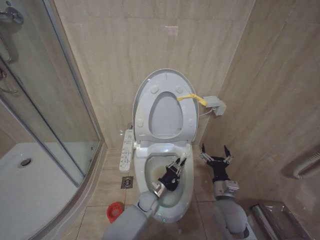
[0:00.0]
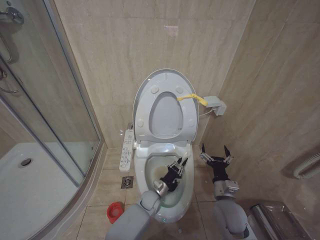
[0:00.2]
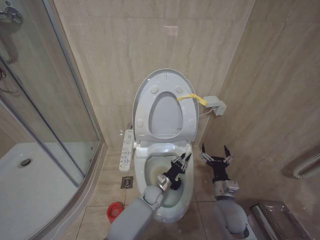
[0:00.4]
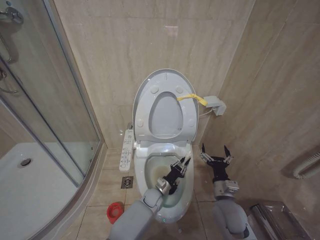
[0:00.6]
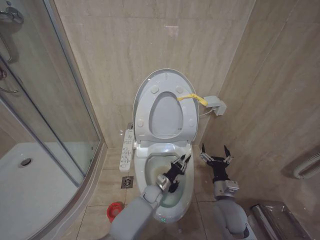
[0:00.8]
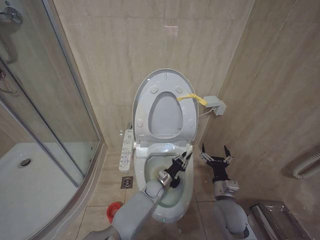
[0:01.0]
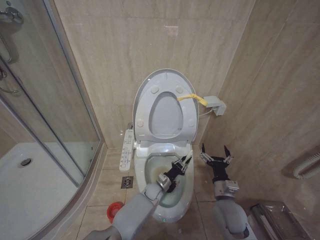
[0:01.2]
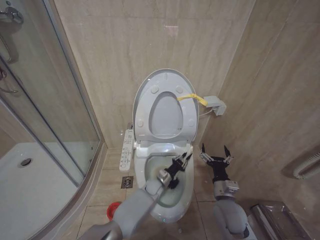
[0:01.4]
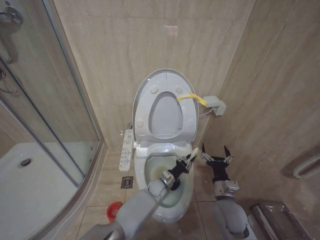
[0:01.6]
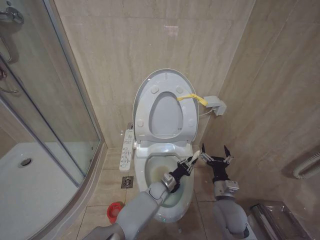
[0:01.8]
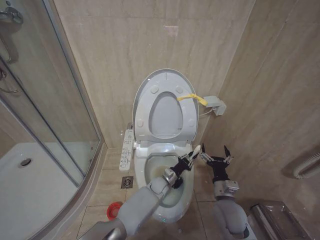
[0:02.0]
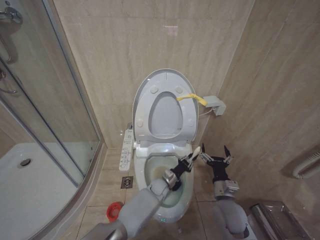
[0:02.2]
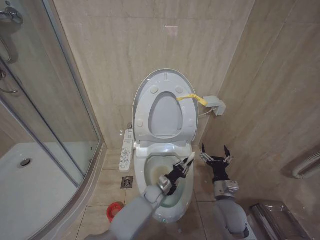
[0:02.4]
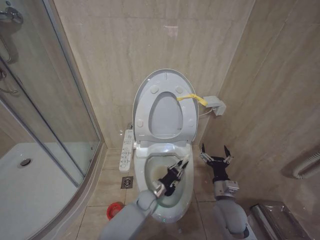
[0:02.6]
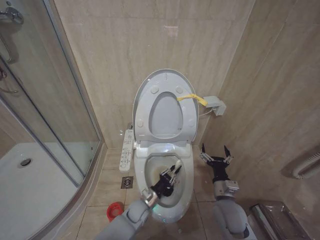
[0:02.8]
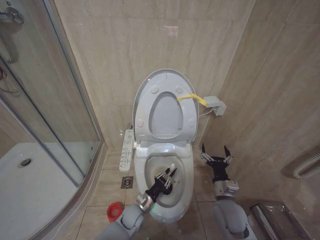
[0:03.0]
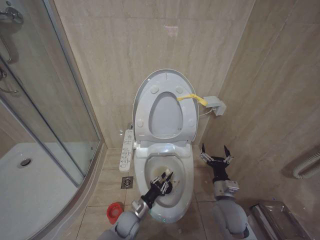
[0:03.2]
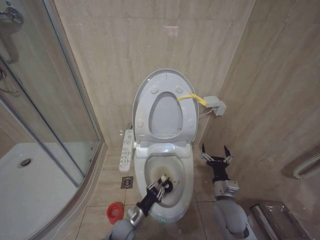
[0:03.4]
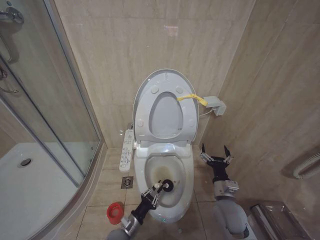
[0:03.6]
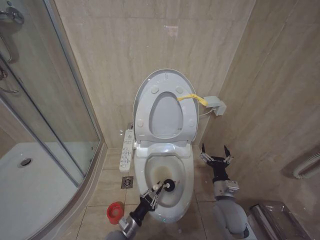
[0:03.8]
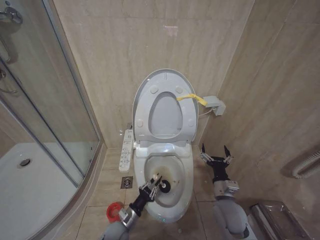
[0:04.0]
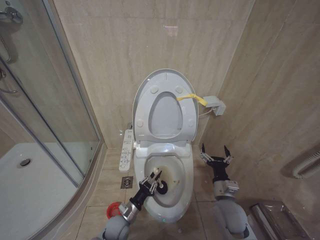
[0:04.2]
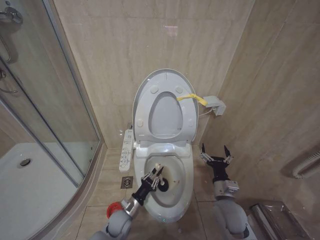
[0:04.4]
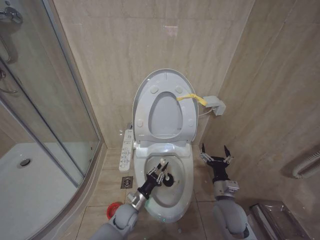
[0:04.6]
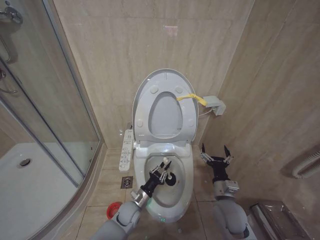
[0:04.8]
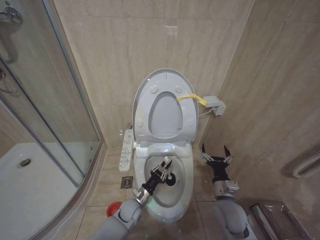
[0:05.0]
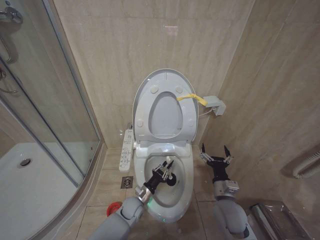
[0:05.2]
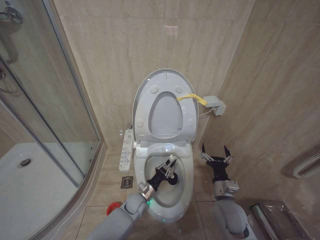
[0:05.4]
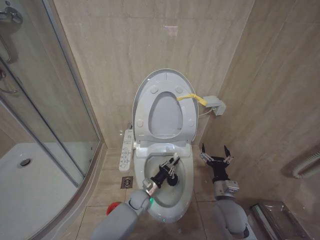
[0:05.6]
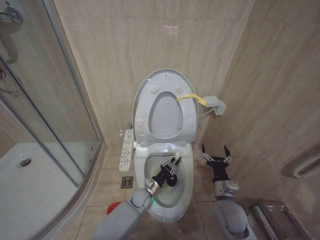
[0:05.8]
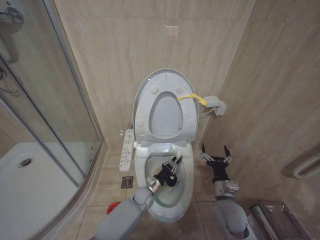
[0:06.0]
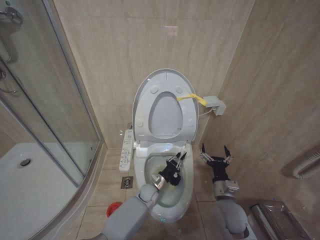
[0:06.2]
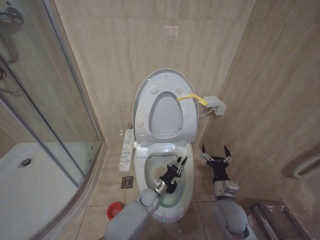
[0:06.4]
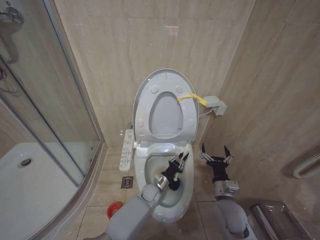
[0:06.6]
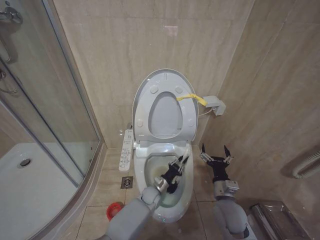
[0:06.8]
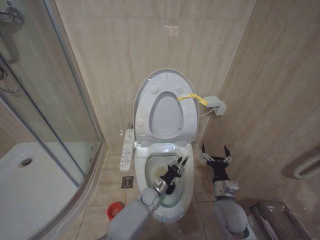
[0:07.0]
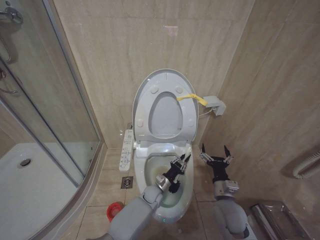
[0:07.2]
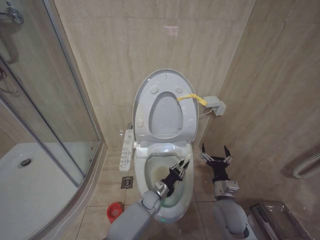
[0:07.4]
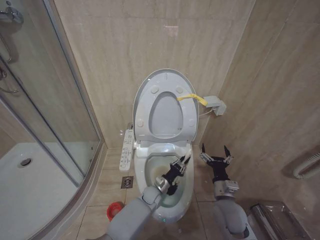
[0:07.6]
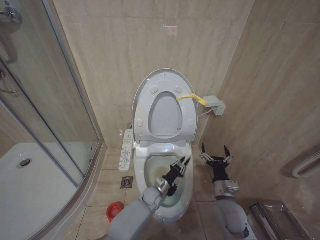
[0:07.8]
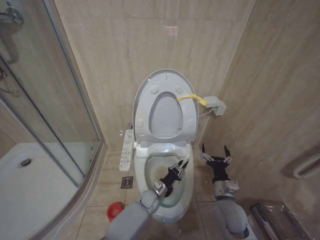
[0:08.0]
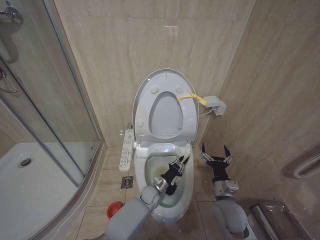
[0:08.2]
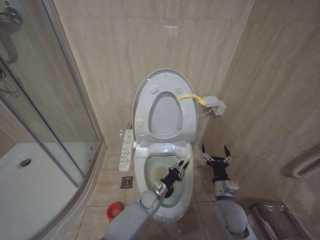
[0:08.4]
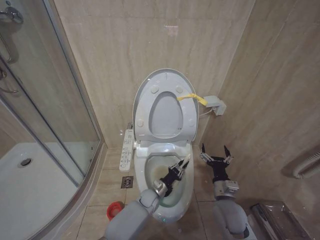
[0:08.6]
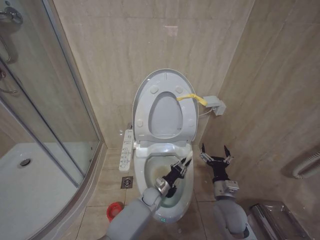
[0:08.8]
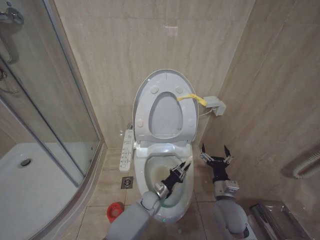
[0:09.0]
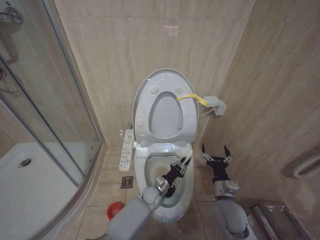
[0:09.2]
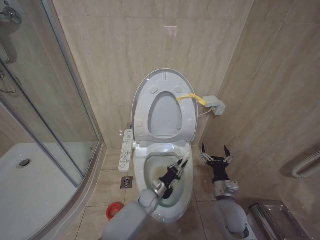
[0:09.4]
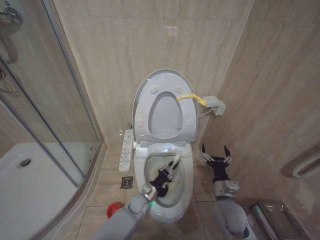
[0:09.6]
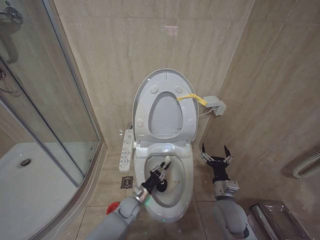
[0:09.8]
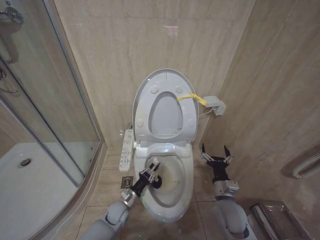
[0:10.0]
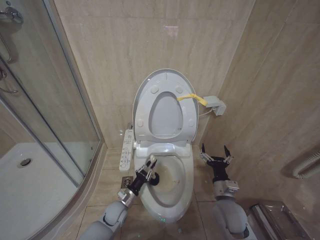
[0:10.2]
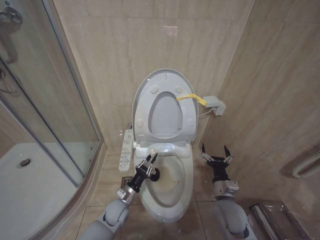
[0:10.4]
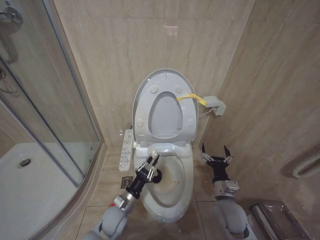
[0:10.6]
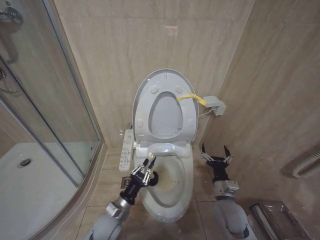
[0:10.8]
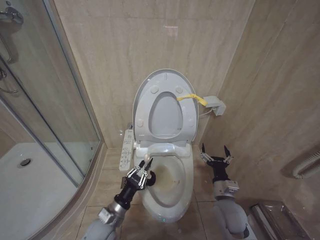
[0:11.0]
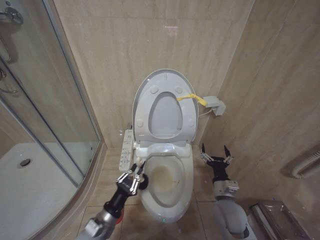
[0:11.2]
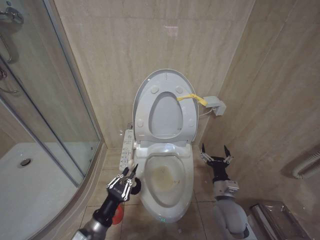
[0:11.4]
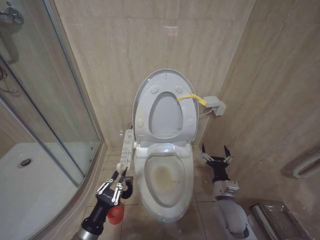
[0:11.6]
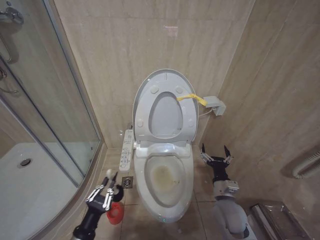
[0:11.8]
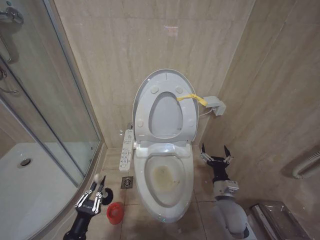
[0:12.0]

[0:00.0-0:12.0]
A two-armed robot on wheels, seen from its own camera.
Task of the whole recording: Open the toilet lid, clean the toilet bowl with a toilet brush, close the toilet lid, and flush.
0:00.0 to 0:01.6: The left gripper is displaced forward by roughly 5 cm.
0:01.6 to 0:03.0: The left gripper heads backward and to the left, covering roughly 15 cm.
0:03.0 to 0:04.4: The left gripper moves to the left, about 5 cm.
0:04.4 to 0:06.0: The left gripper heads forward and to the right, covering approximately 15 cm.
0:06.0 to 0:09.0: The grippers stay close to where they were, moving slightly.
0:09.0 to 0:10.4: The left gripper heads to the left and upward, covering approximately 15 cm.
0:10.4 to 0:12.0: The left gripper is displaced backward and to the left by some 25 cm.

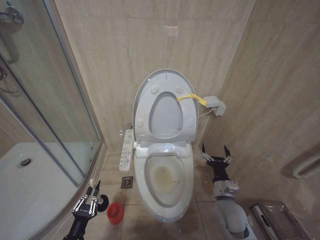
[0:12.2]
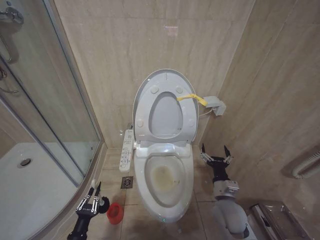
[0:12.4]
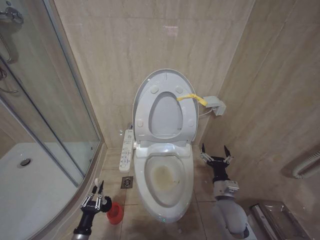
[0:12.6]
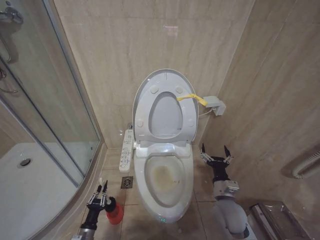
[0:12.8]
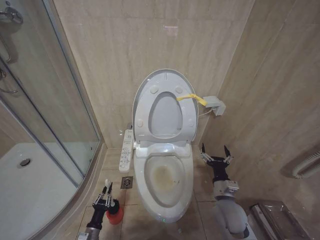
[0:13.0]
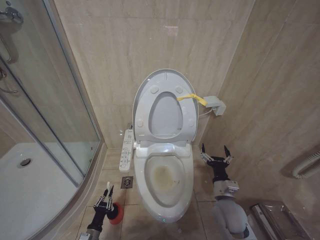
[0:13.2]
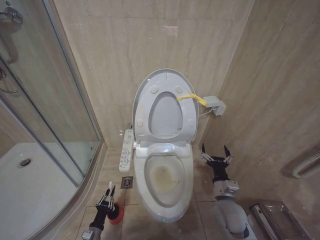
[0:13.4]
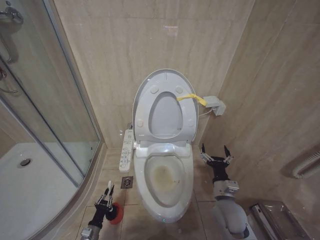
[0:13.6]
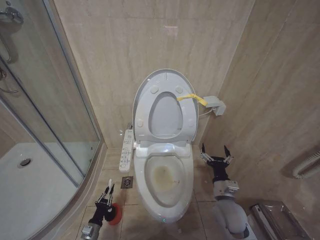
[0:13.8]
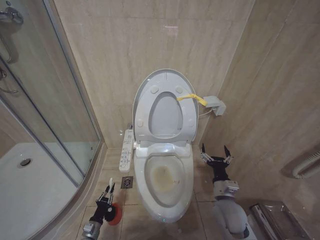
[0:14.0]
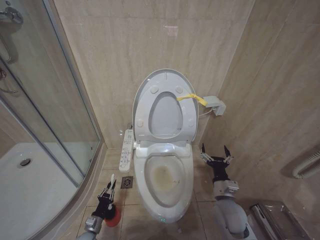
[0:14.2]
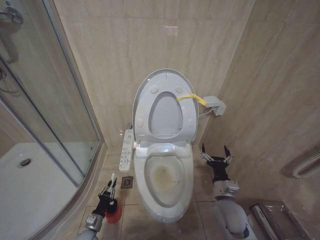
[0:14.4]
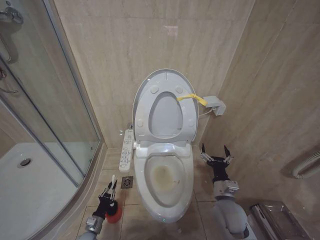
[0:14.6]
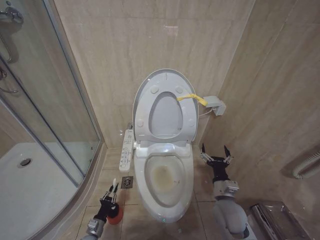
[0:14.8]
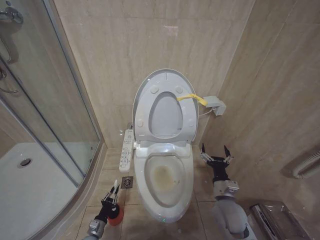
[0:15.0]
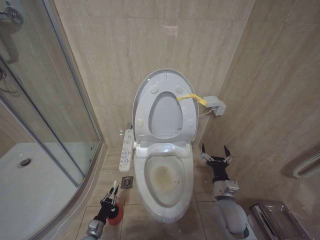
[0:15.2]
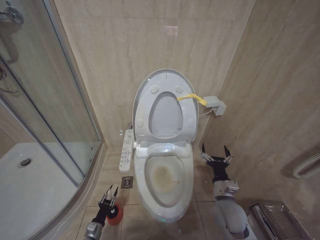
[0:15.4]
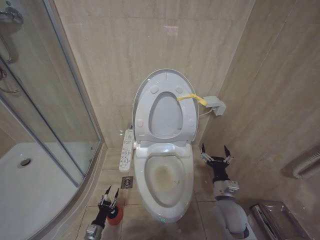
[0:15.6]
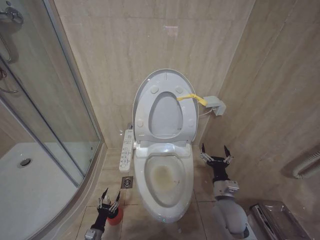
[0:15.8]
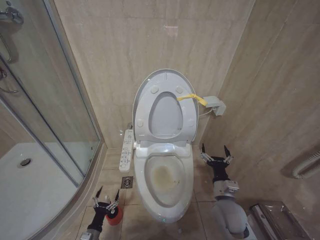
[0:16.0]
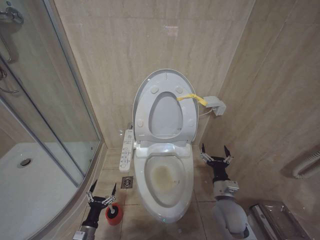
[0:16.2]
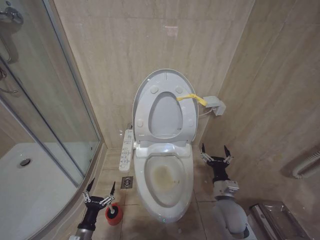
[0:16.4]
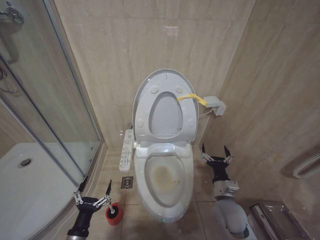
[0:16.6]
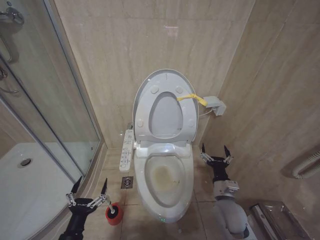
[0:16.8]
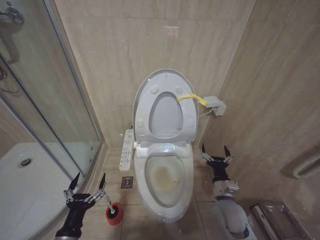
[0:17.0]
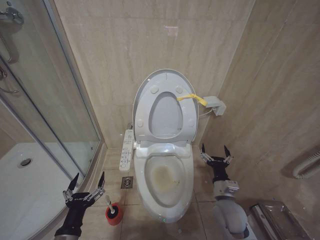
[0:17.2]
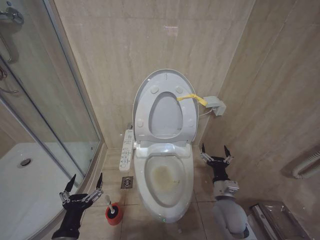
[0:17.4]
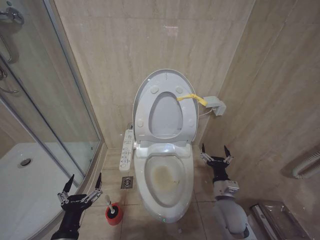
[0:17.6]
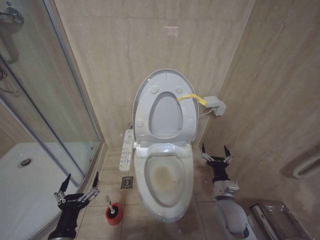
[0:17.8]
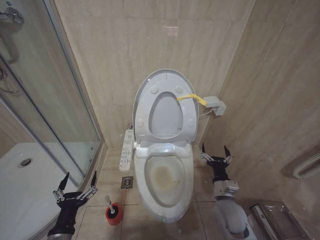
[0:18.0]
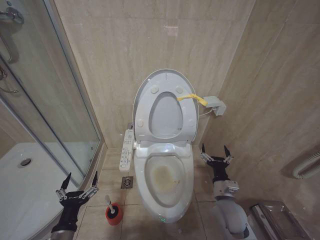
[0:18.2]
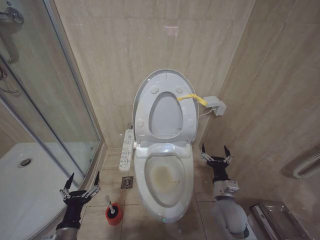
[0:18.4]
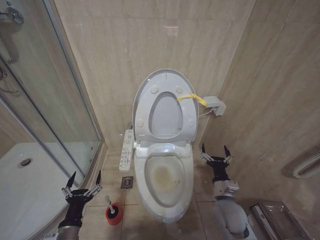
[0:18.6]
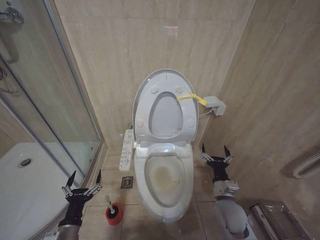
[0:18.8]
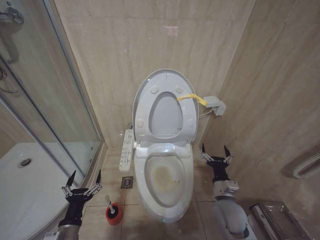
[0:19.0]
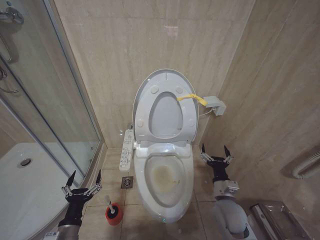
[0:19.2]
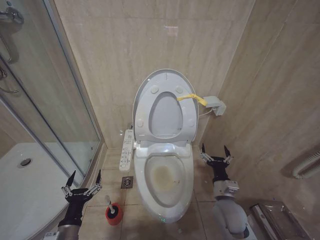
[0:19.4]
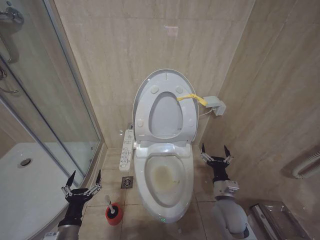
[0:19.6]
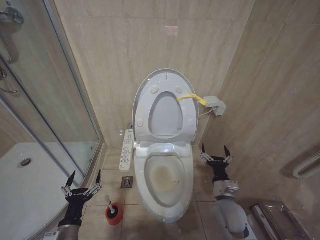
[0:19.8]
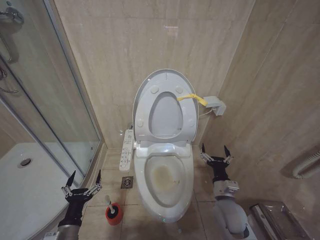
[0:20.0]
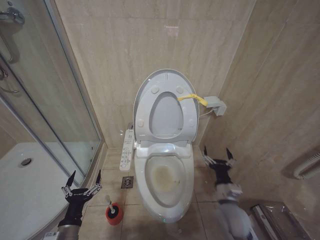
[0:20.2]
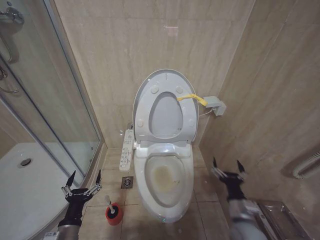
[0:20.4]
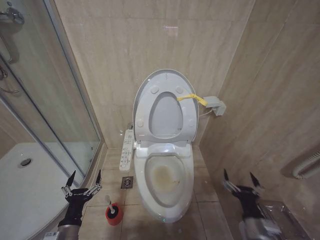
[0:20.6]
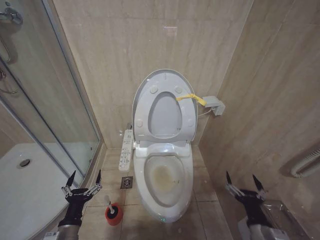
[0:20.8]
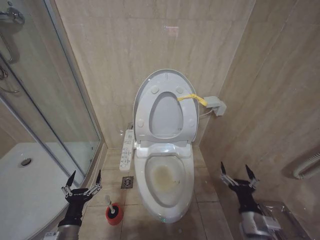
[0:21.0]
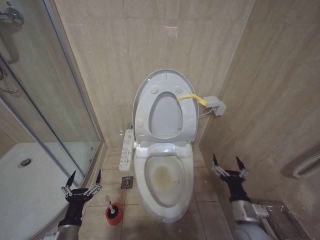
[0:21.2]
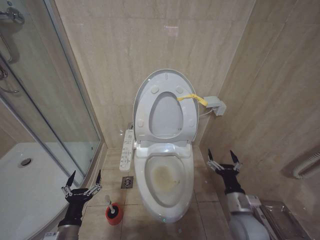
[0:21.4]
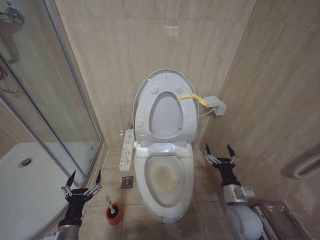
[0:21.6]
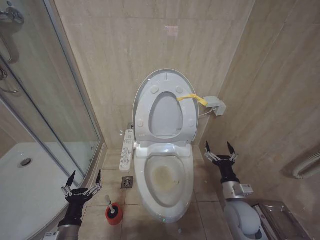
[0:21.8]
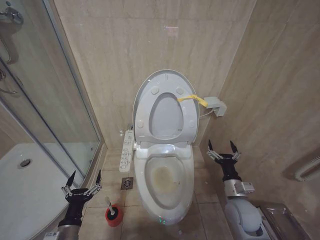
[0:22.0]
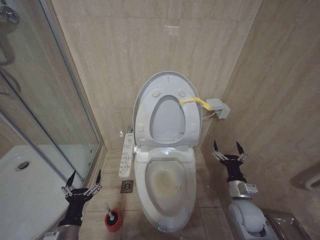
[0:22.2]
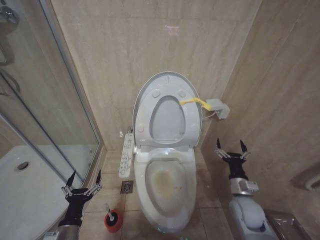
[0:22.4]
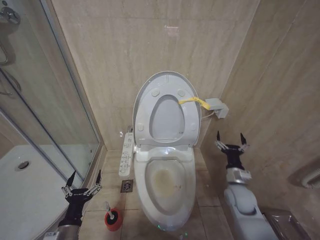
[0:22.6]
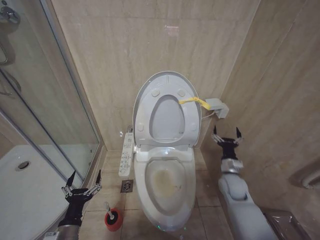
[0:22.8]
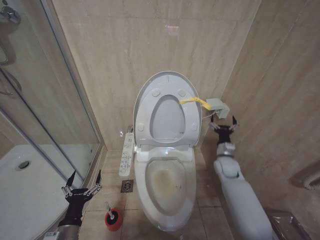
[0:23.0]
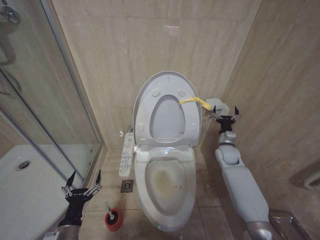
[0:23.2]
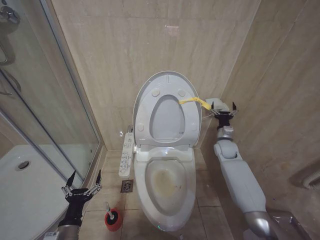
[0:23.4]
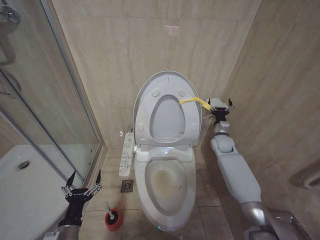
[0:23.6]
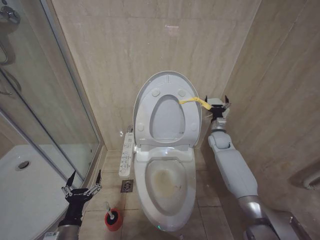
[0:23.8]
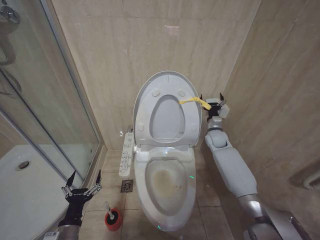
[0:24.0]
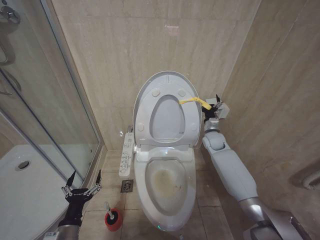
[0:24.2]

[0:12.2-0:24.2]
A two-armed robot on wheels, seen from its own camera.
Task of the whole recording: Open the toilet lid, clean the toilet bowl with a toilet brush, close the toilet lid, and flush.
0:12.2 to 0:13.8: The left gripper is displaced downward and forward by roughly 20 cm.
0:15.2 to 0:16.6: The left gripper heads upward and backward, covering some 20 cm, and opens up.
0:16.6 to 0:18.2: The left gripper heads upward, covering some 10 cm.
0:18.2 to 0:19.8: The grippers move only a little.
0:19.8 to 0:21.2: The right gripper moves backward, roughly 10 cm.
0:21.2 to 0:22.6: The right gripper goes about 10 cm forward.
0:22.6 to 0:24.2: The right gripper heads forward and upward, covering roughly 25 cm.
